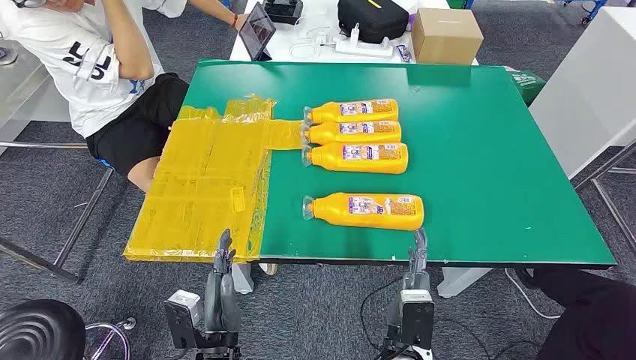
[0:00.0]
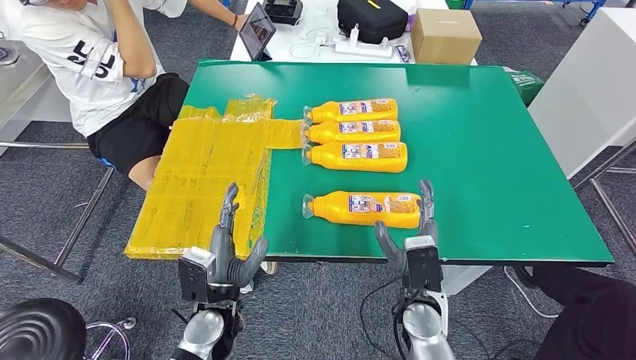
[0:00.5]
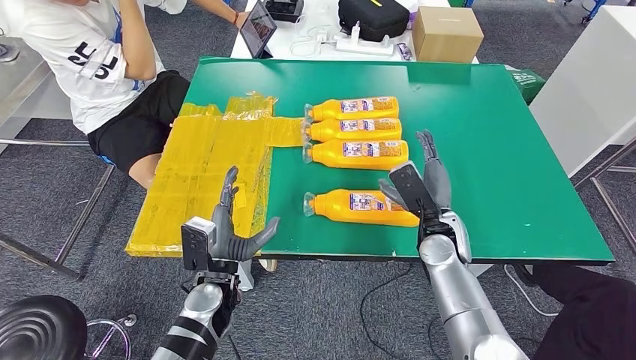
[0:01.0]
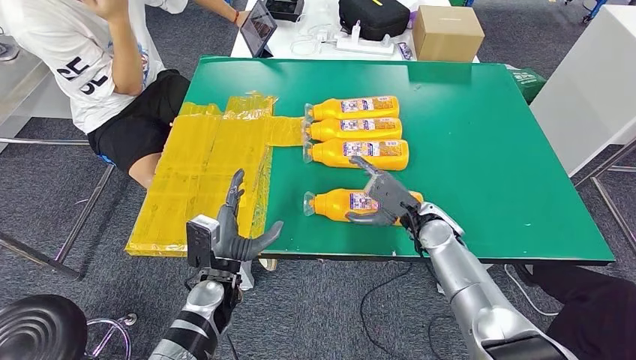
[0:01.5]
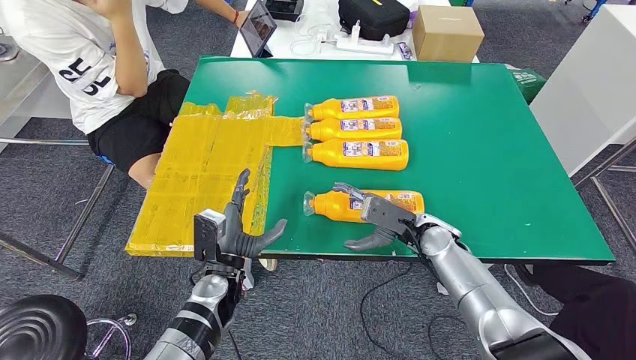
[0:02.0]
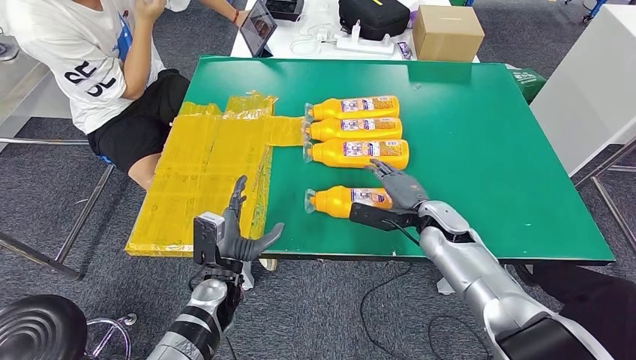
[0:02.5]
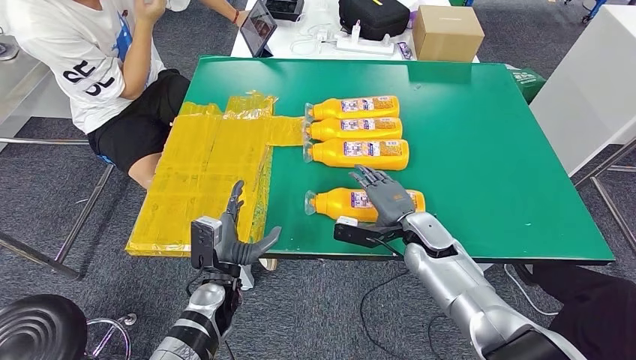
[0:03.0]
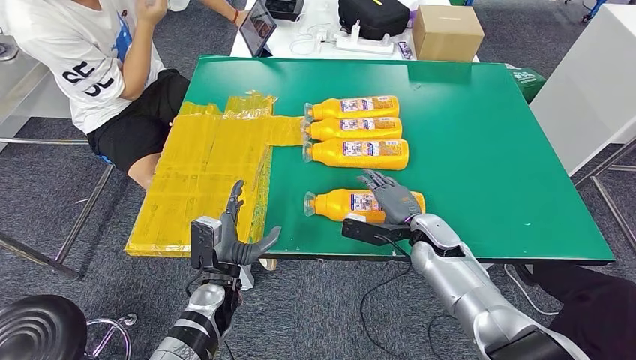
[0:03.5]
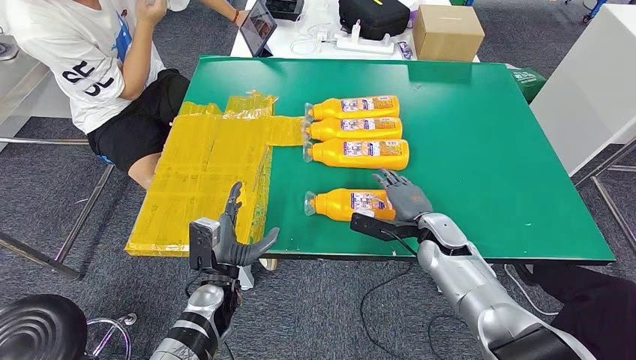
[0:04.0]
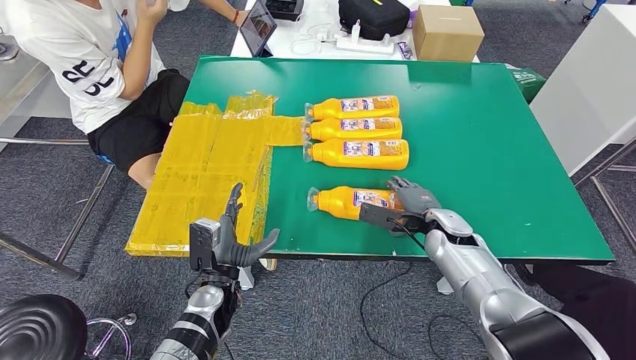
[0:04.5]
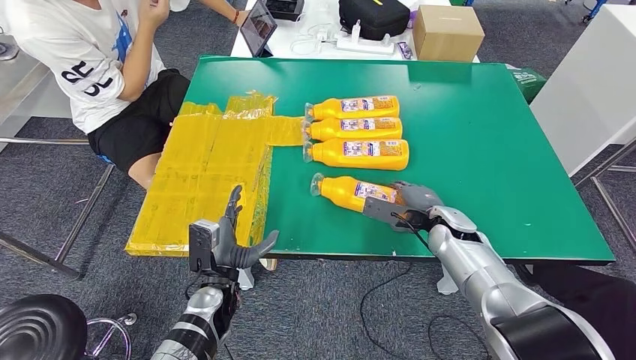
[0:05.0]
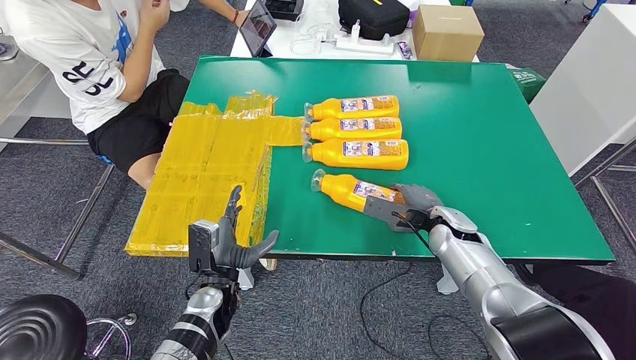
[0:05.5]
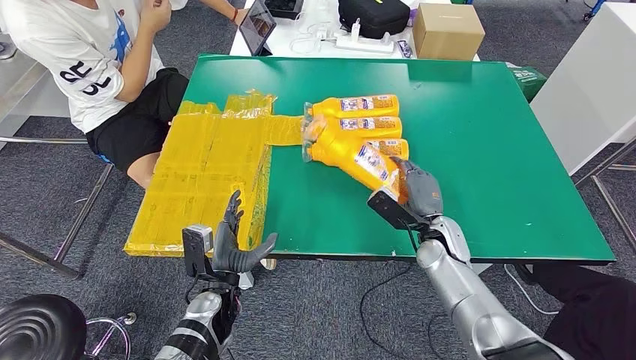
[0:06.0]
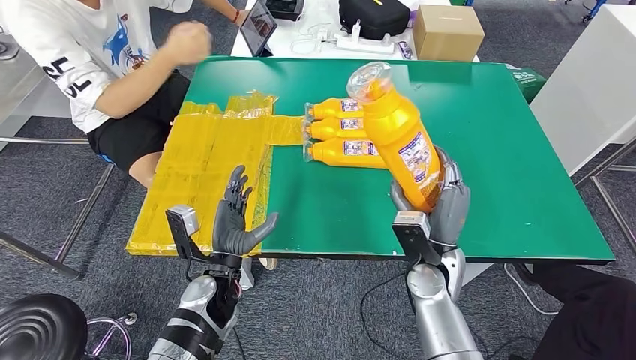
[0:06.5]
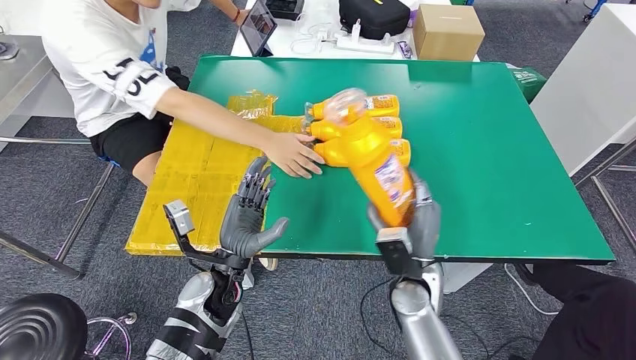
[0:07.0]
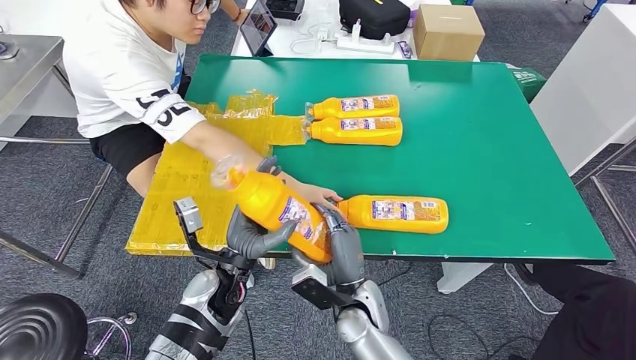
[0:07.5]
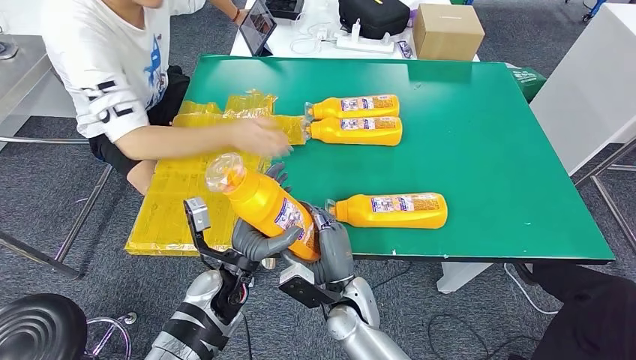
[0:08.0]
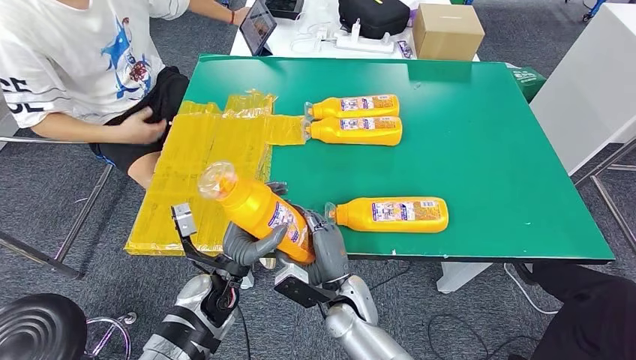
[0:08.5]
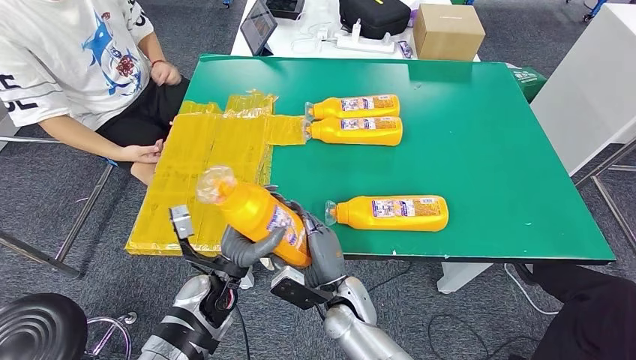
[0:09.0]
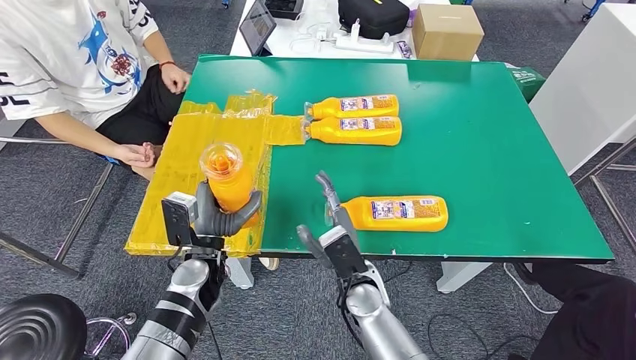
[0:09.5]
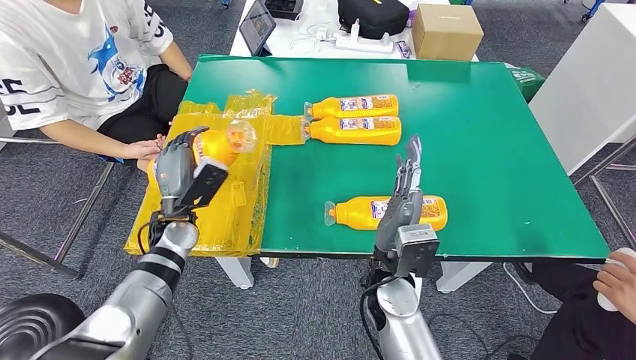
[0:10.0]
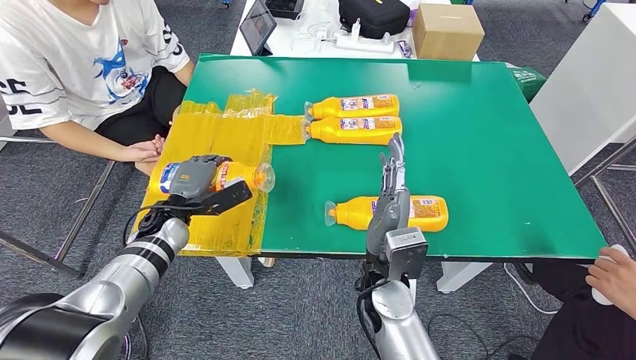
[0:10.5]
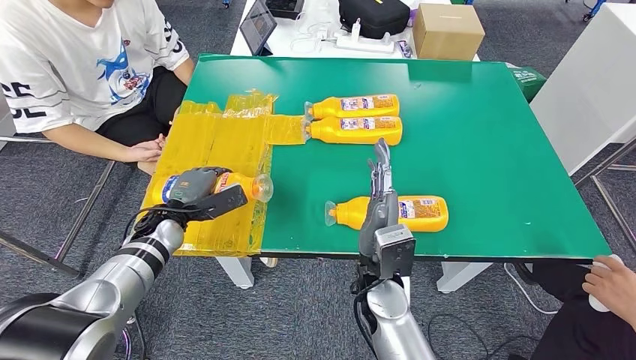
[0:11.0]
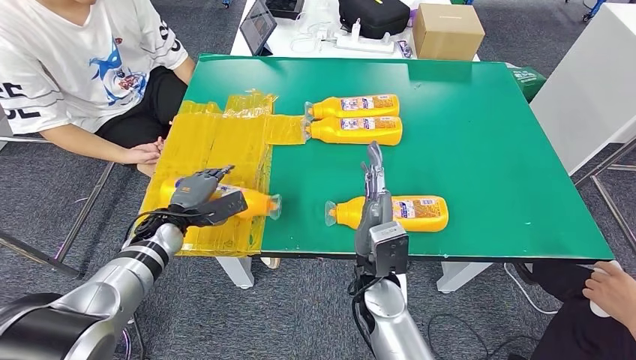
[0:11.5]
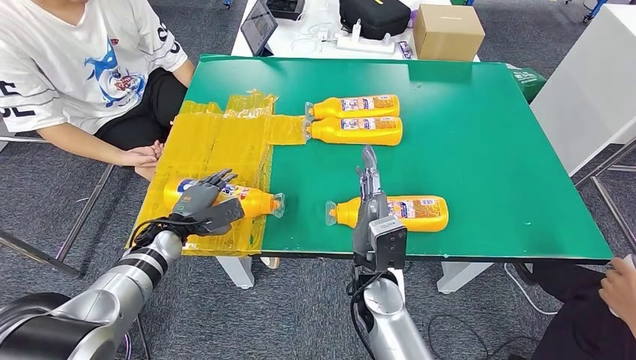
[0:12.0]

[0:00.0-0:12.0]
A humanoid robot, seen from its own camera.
Step, 0:00.0 to 0:06.5: Take the bottle from the table.

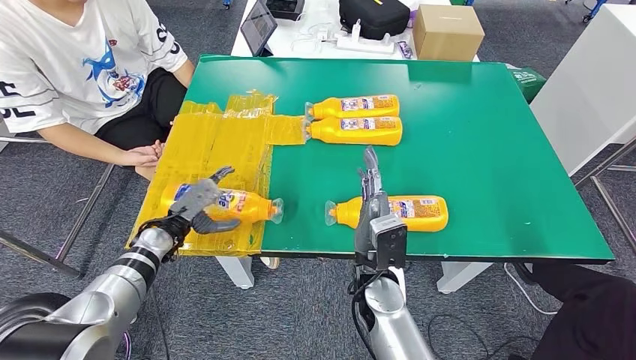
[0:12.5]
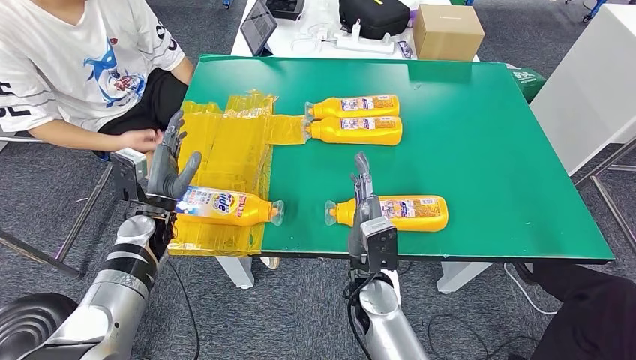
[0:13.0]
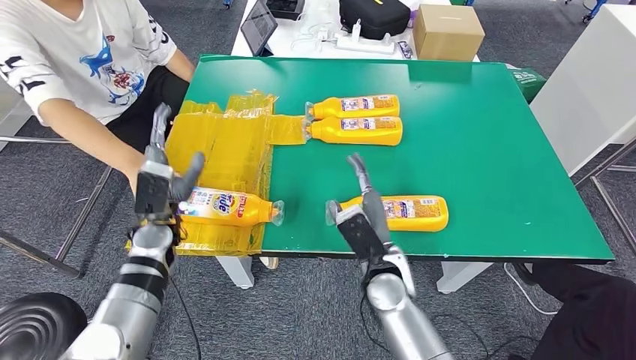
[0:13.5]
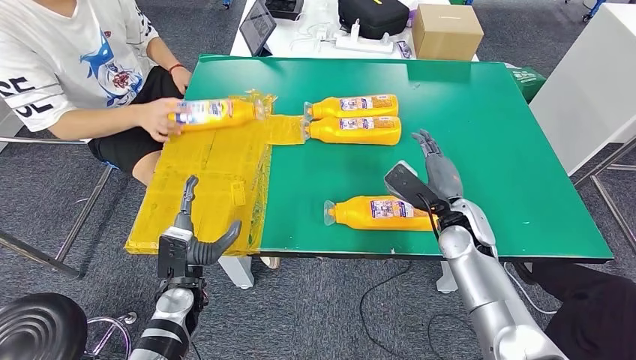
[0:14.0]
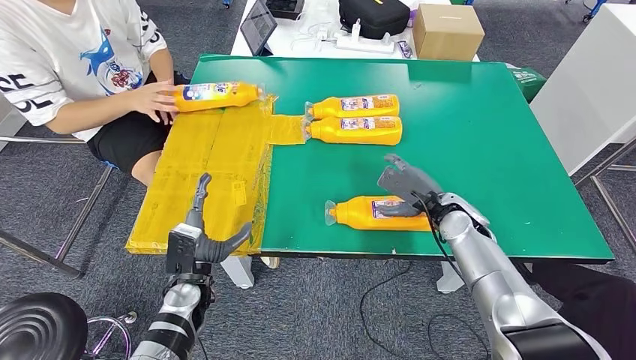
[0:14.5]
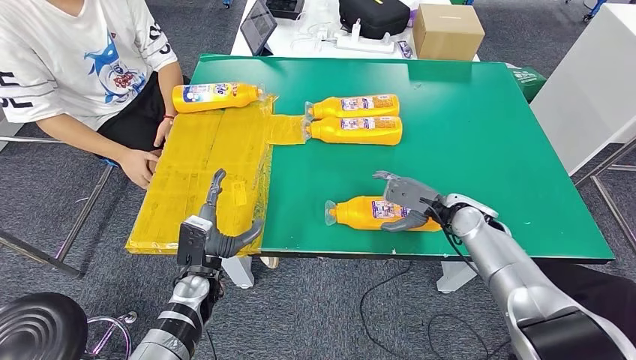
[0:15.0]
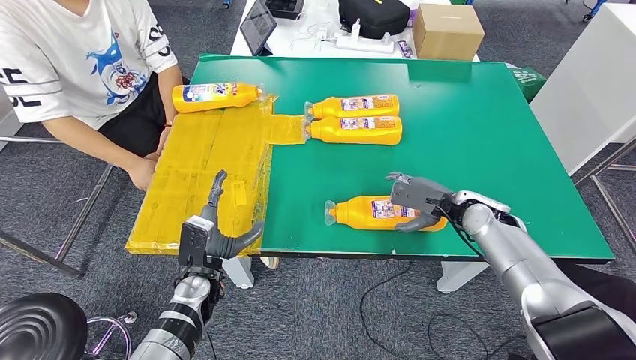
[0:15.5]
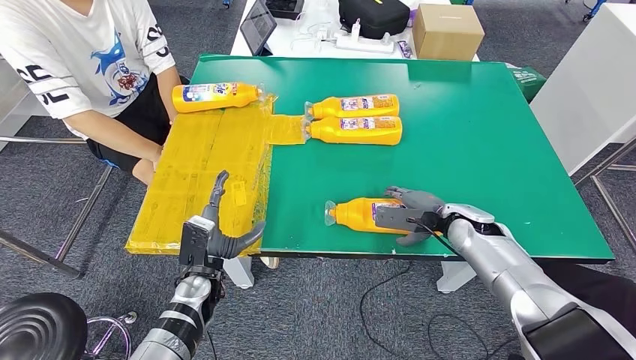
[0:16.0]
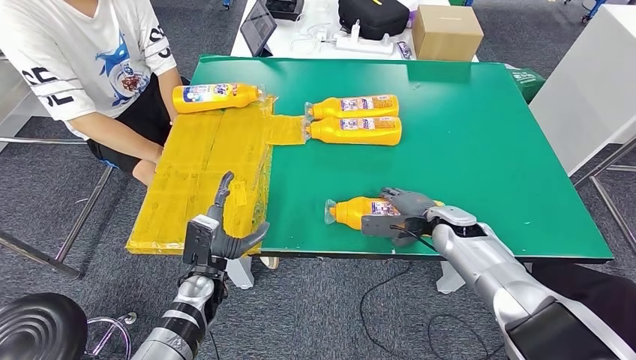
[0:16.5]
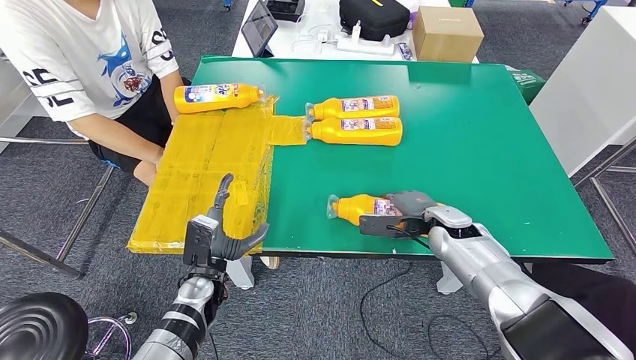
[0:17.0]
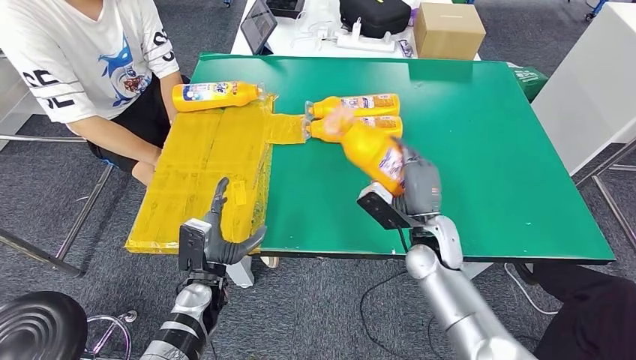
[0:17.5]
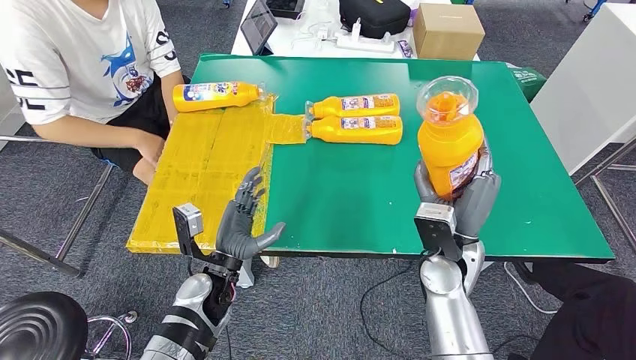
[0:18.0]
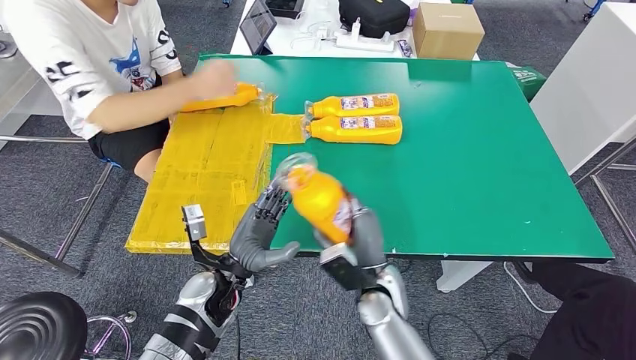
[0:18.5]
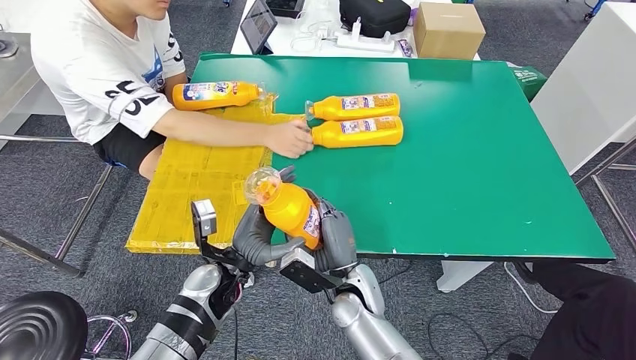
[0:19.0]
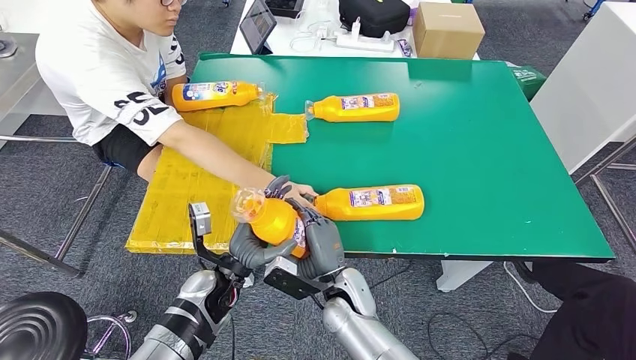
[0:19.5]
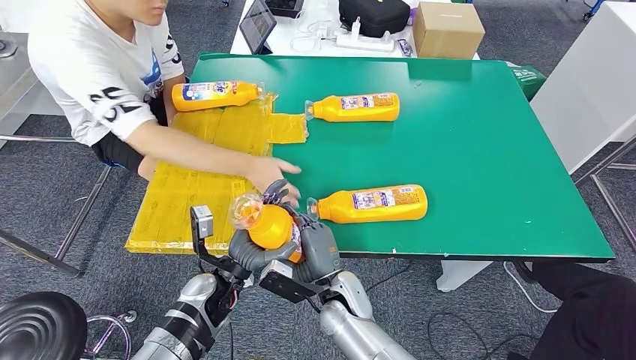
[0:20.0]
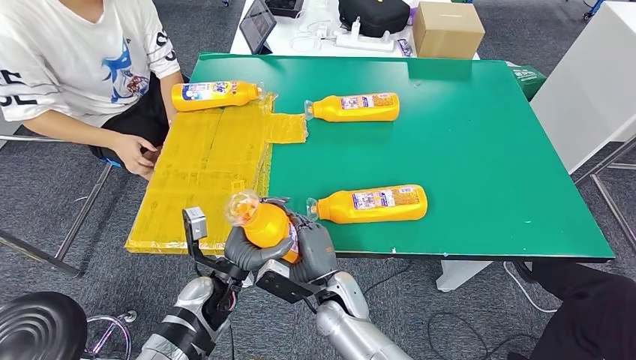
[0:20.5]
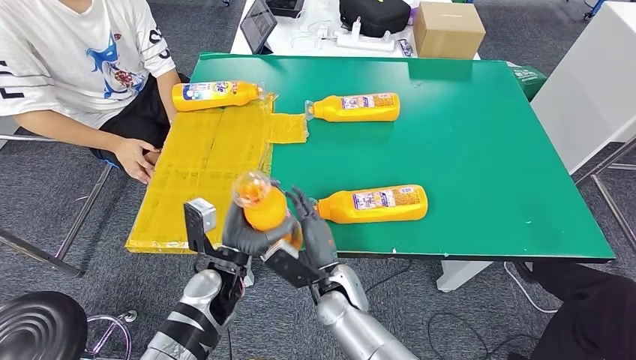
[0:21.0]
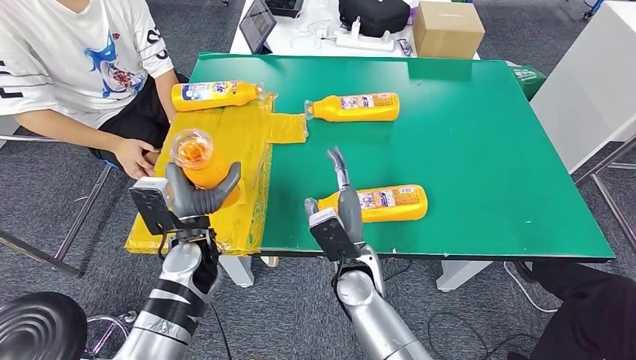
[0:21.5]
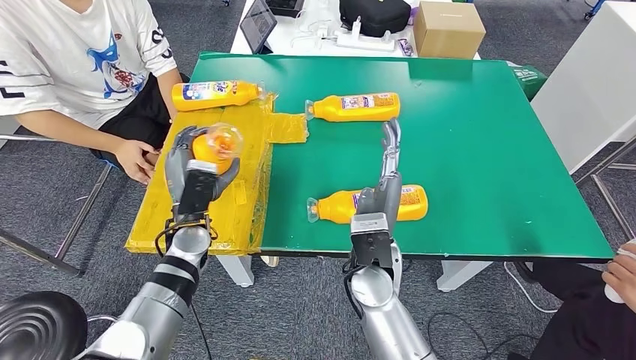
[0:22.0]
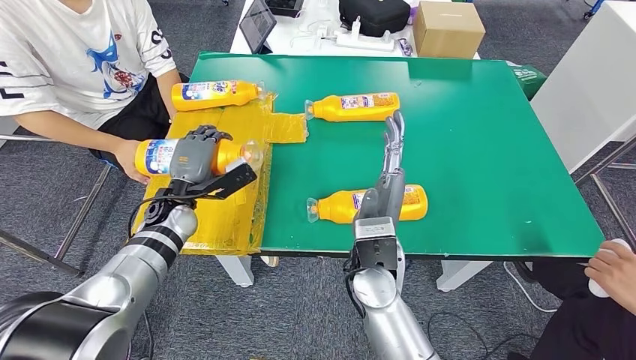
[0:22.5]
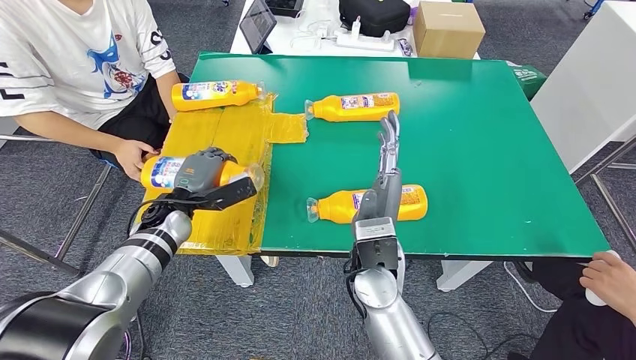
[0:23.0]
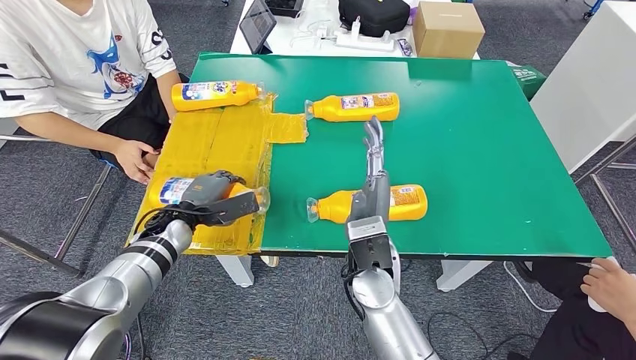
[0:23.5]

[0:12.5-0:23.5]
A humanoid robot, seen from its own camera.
Step, 0:13.0 to 0:17.5: Pick up the bottle from the table.
0:21.5 to 0:23.5: The left hand is displaced to the left and forward by some 10 cm; the right hand goes about 5 cm upward.
